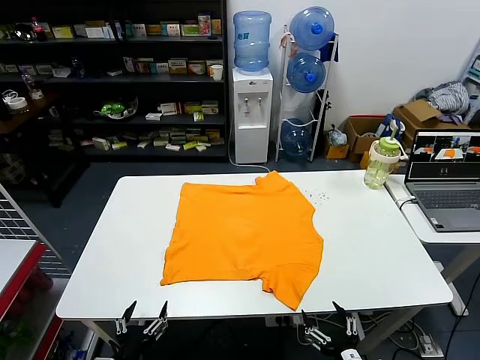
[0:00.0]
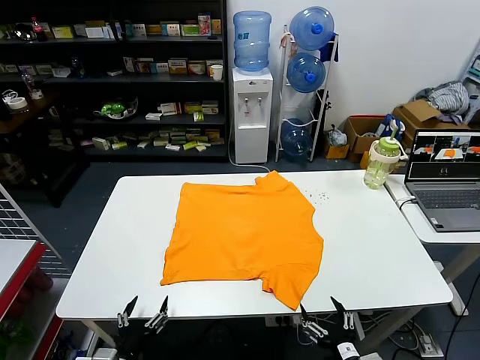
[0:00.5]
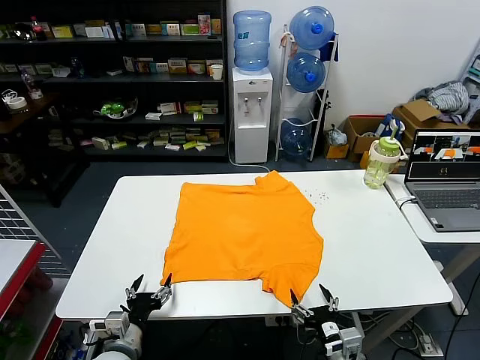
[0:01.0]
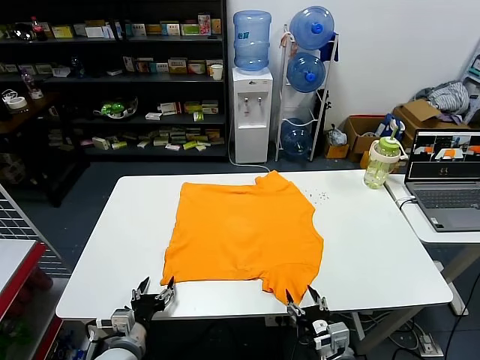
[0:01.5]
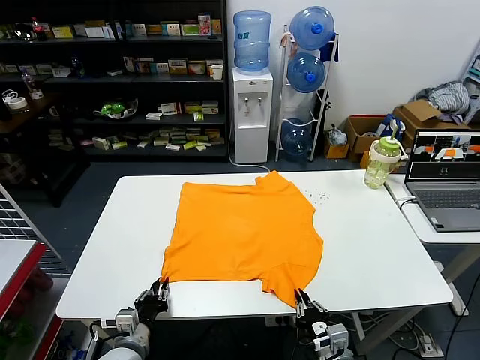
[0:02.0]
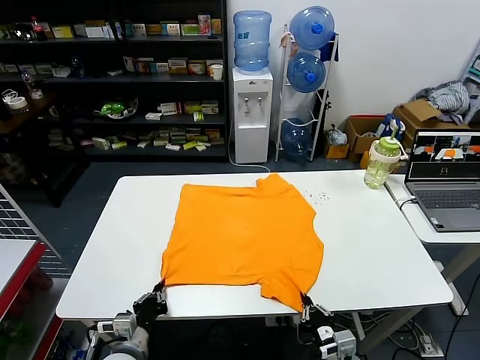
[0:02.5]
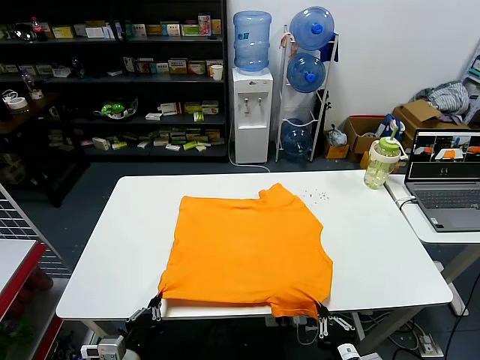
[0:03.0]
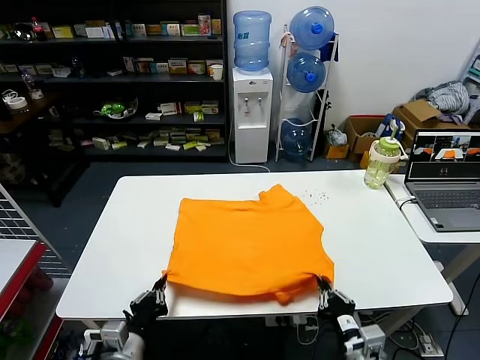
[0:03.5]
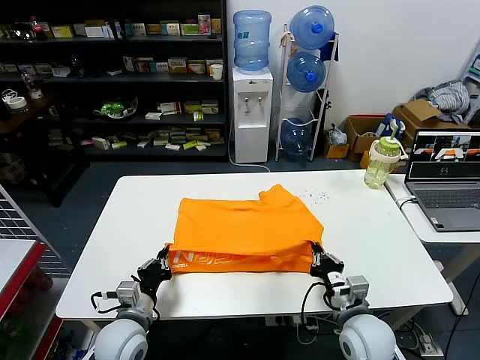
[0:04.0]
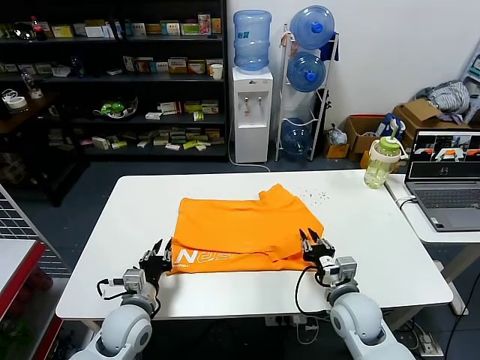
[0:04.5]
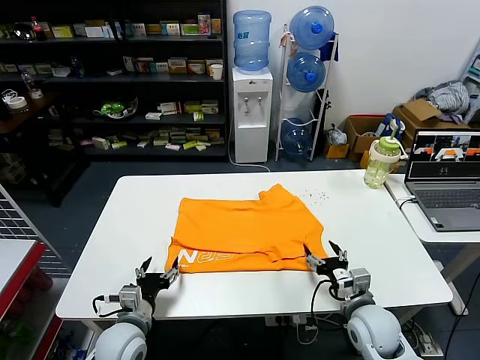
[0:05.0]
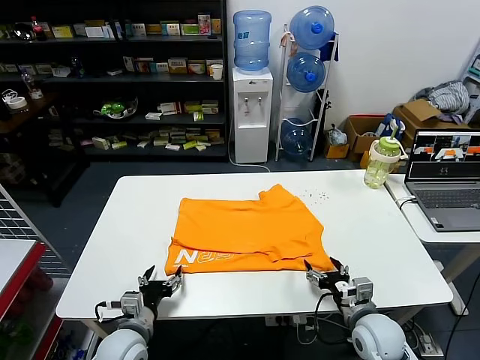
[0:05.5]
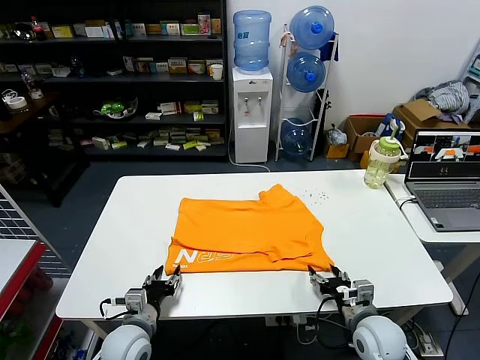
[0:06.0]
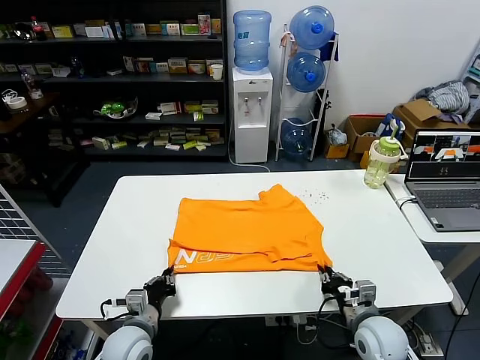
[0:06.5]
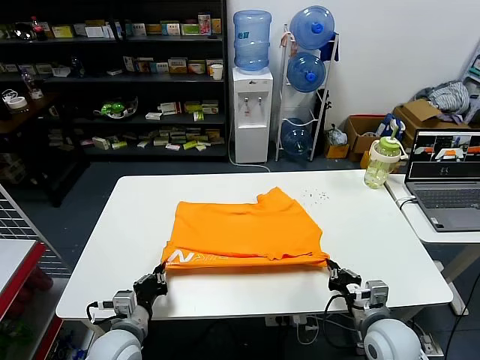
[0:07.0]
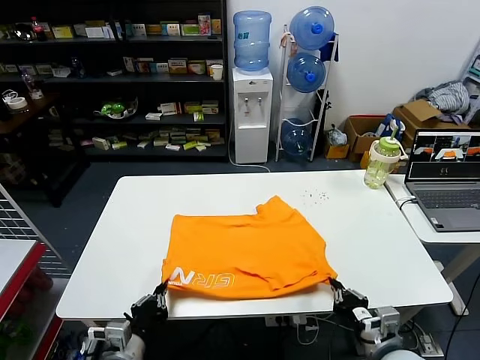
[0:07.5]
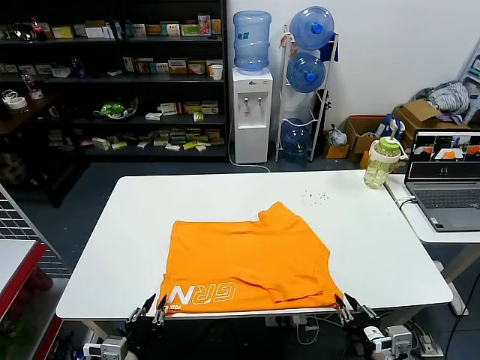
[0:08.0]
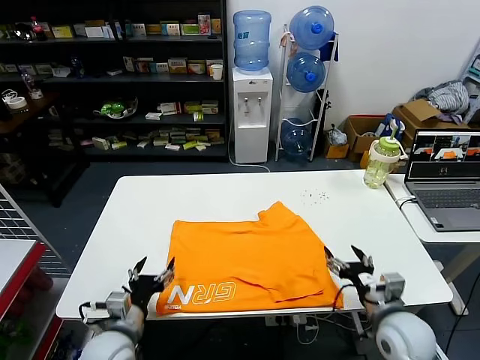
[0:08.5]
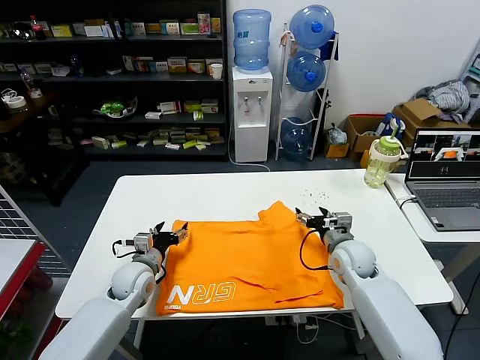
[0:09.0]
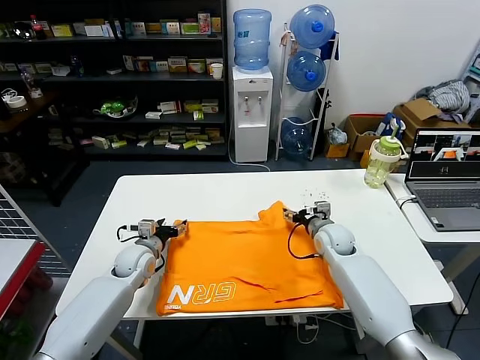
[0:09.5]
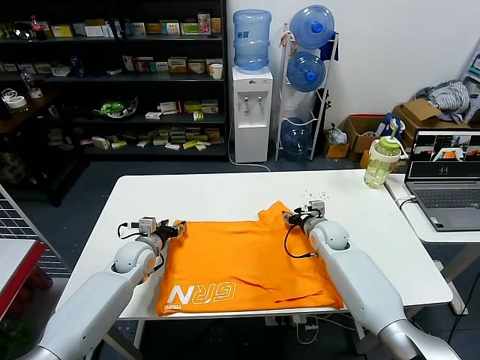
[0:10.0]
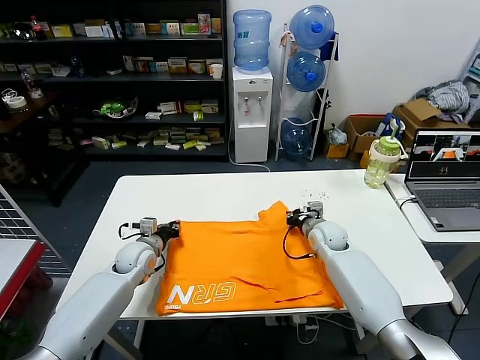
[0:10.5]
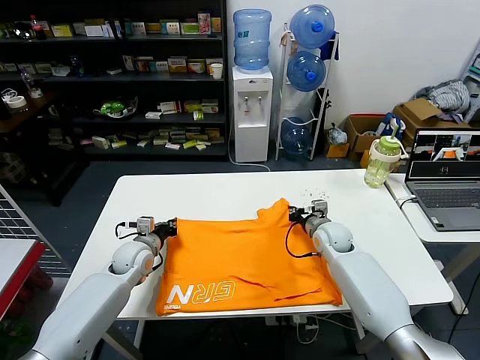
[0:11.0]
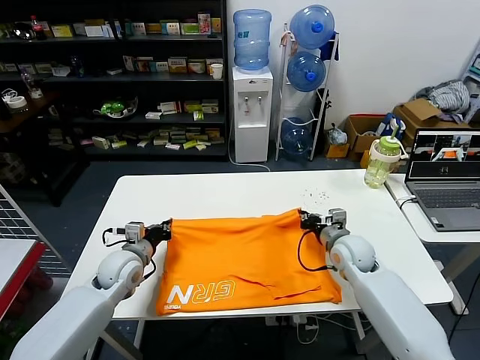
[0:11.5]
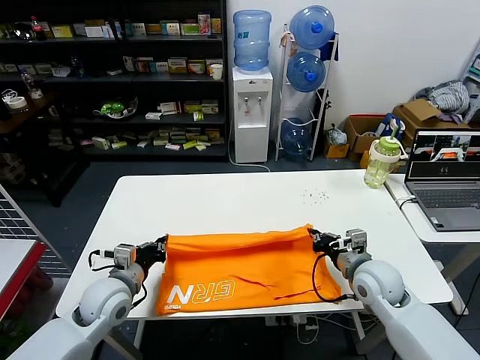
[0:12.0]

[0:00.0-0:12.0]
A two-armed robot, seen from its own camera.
Task of the whole recording: fold and organize the clothes.
Step, 0:00.0 to 0:02.0: use both grippers simultaneously to clamp the lower edge of the clothing fabric.
Step, 0:02.5 to 0:04.5: use both grippers to drag the lower edge of the fabric forward and fold it over the upper edge.
Step, 0:05.0 to 0:07.5: Drag the clothes downward with both gripper.
Step, 0:08.0 to 0:10.5: use both grippers simultaneously to clamp the upper edge of the clothing fabric.
0:02.0 to 0:04.0: The left gripper goes some 5 cm upward, while the right gripper travels forward and upward by some 10 cm.
0:04.0 to 0:06.0: The left gripper opens its fingers, while the right gripper moves some 5 cm, and opens up.
0:06.0 to 0:08.0: The grippers both shift backward by roughly 10 cm. The right gripper closes up; the left gripper closes and opens again.
0:08.0 to 0:10.0: The two grippers go approximately 35 cm forward. The left gripper opens.
0:10.0 to 0:12.0: Both grippers move backward and upward, approximately 15 cm. The left gripper closes up, while the right gripper closes.

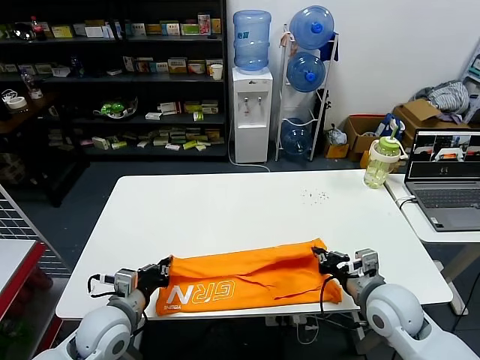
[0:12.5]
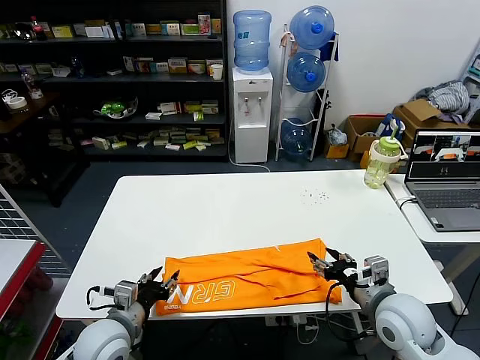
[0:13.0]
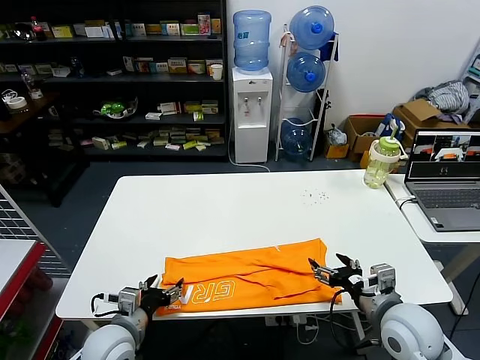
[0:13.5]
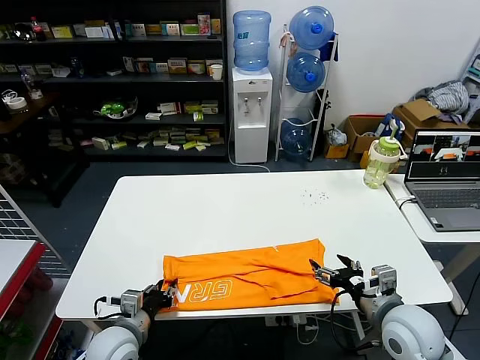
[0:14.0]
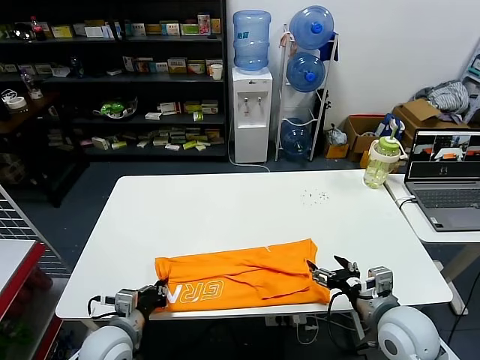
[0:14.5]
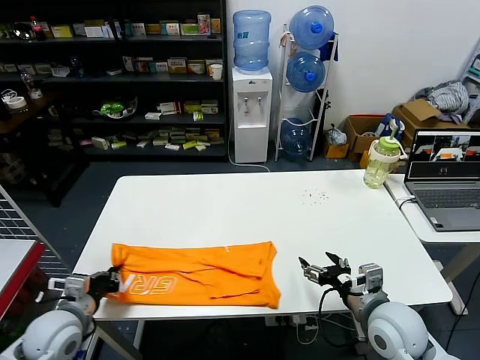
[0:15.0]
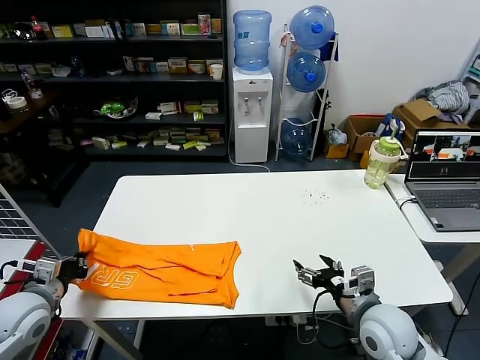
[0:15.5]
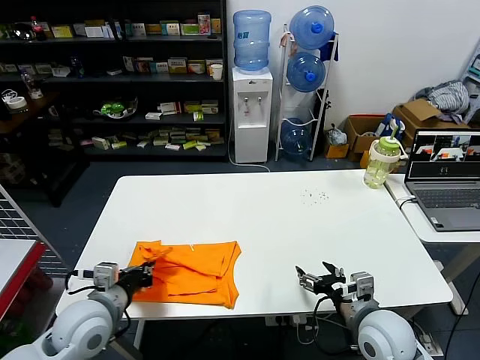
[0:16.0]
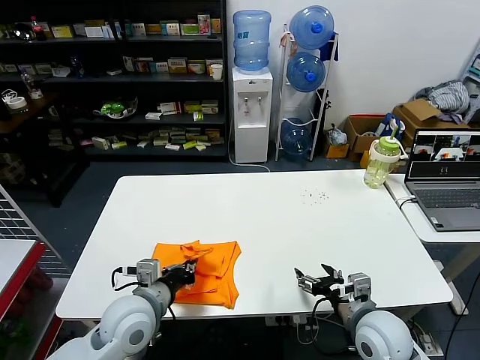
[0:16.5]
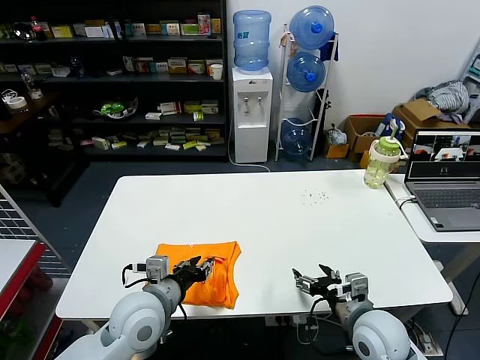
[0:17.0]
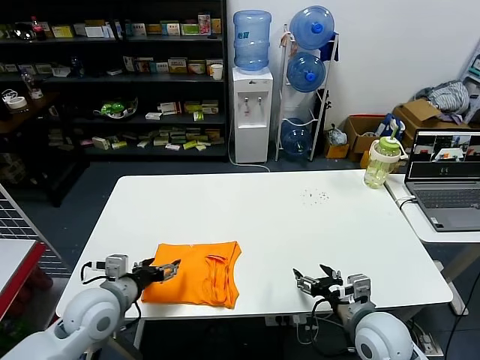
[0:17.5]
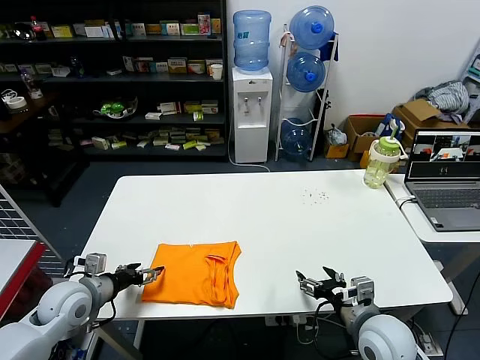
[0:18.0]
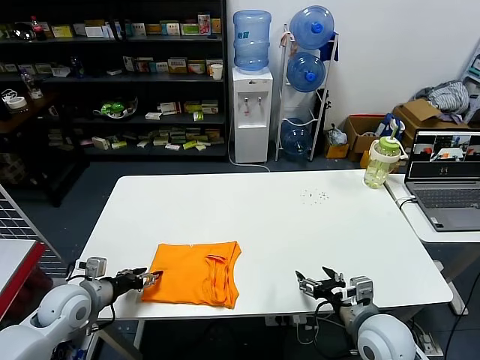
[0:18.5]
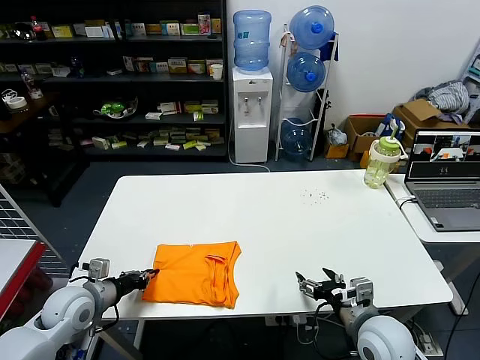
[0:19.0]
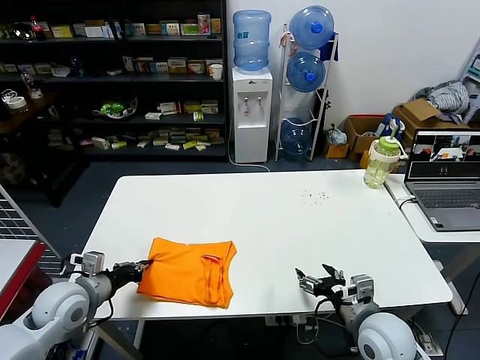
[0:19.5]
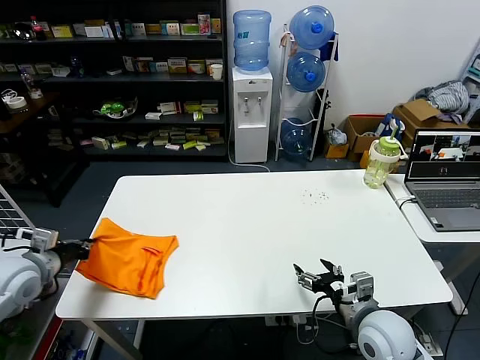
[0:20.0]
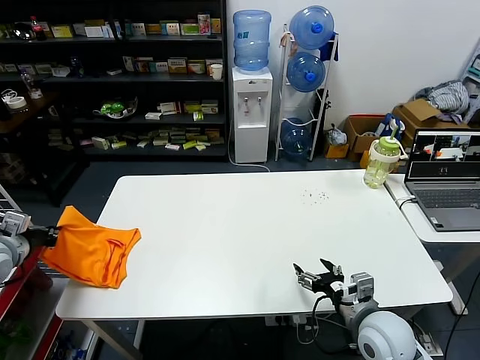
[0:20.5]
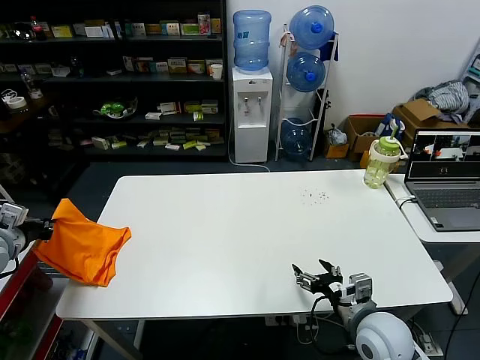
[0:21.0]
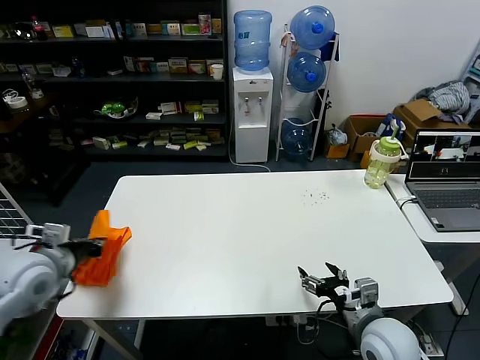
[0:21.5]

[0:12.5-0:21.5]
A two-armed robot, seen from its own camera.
Task of the whole recording: fold and organize the clothes.
Step, 0:13.0 to 0:14.0: use the left gripper to clamp the left edge of the fabric.
Step, 0:14.5 to 0:17.0: use the left gripper to drag the left edge of the fabric to the left and folds it over the right edge.
0:12.5 to 0:14.5: The left gripper shifts by about 5 cm, and opens, then closes once more. Meanwhile the right gripper opens its fingers.
0:14.5 to 0:17.0: The right gripper moves about 5 cm, while the left gripper shifts some 10 cm upward, goes to the left and returns, approximately 15 cm each way, and opens.
0:17.0 to 0:19.5: The left gripper moves to the left, roughly 15 cm, and closes up.
0:19.5 to 0:21.5: The left gripper moves upward and to the left, about 10 cm.

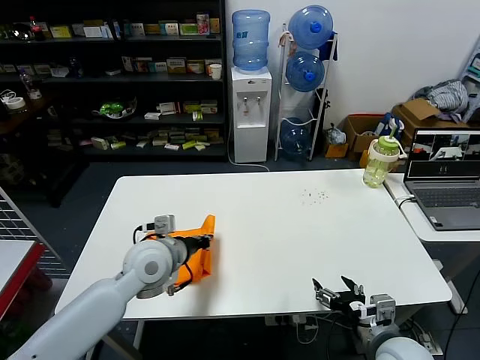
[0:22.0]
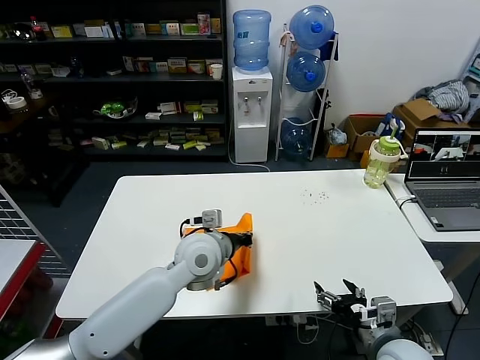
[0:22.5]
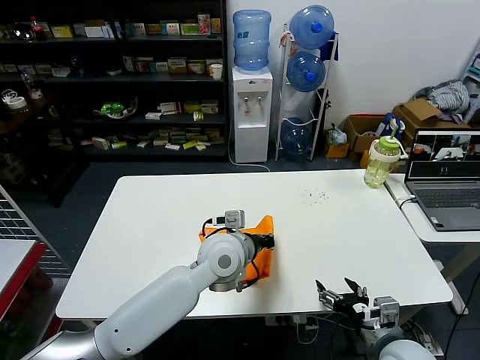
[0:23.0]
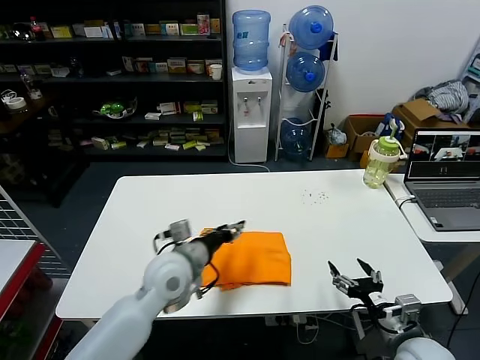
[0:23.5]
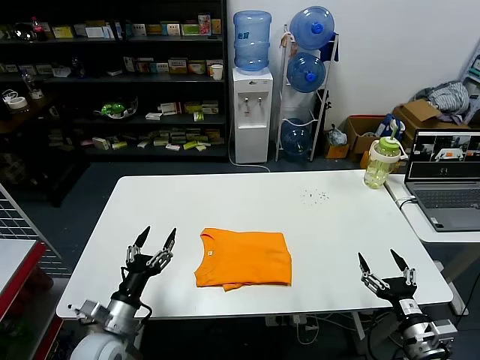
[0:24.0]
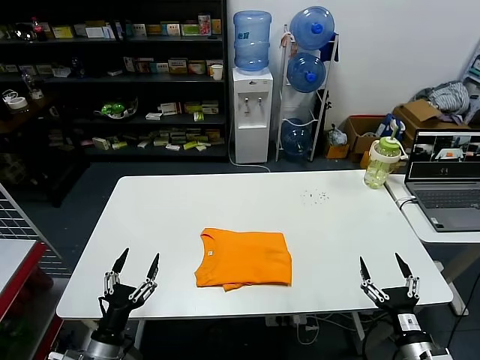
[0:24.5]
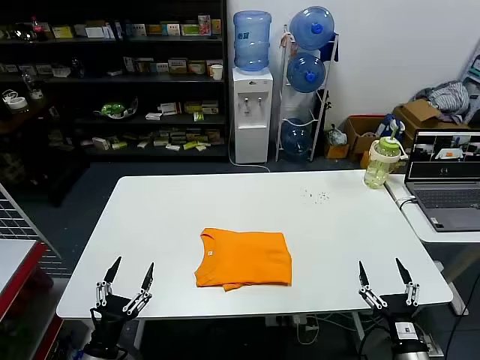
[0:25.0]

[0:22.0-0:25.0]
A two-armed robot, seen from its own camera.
Task of the whole recording: fold and organize the clothes.
0:22.0 to 0:23.5: The left gripper moves to the right, approximately 10 cm, and opens up.
0:23.5 to 0:25.0: The right gripper goes about 10 cm backward and downward. The left gripper moves backward, to the left and downward, some 35 cm, and opens.

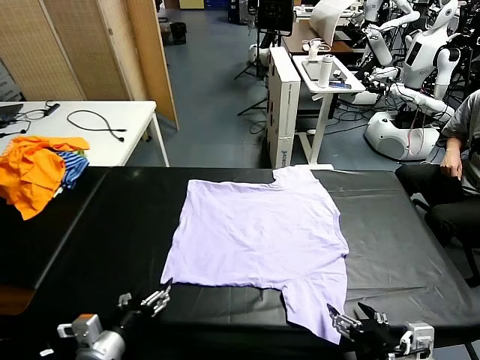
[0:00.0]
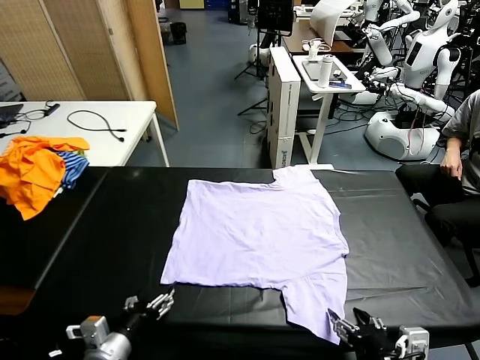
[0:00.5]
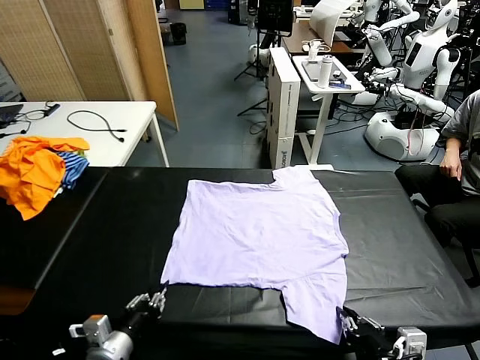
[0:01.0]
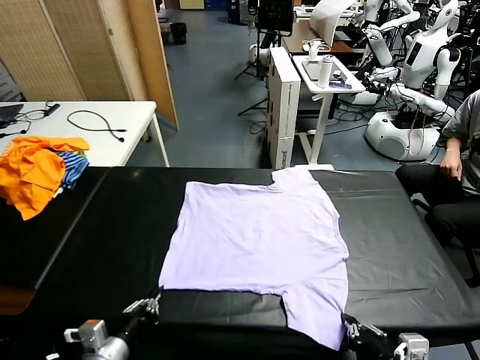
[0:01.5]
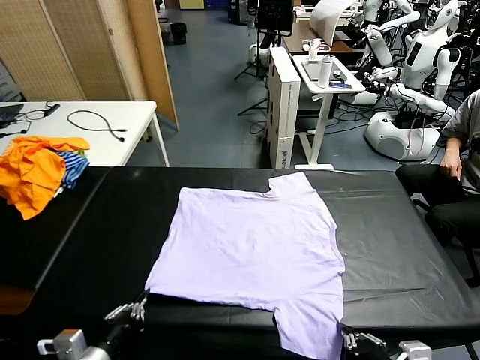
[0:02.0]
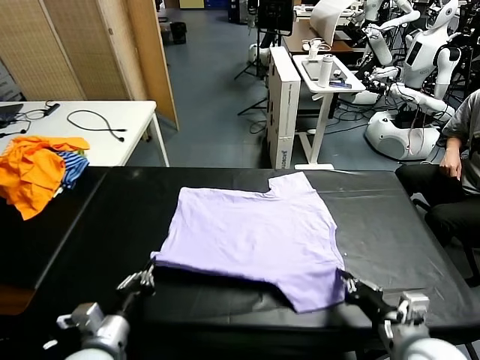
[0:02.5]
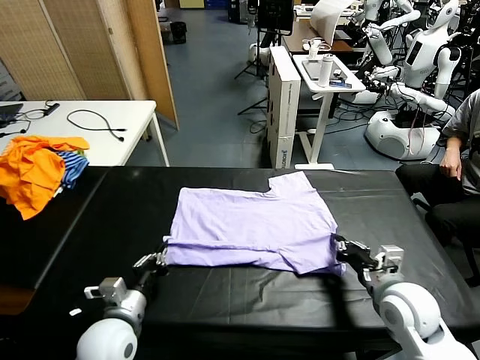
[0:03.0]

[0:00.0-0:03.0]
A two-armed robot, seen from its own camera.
Task of the whole recording: fold and organize the clothes.
Step, 0:00.0 to 0:01.5: use both grippers simultaneously to clamp the lower edge of the clothing fabric.
0:01.5 to 0:03.0: The left gripper heads forward, covering about 5 cm. The right gripper is displaced forward by approximately 20 cm.
